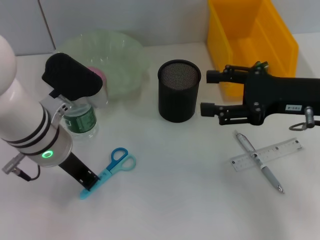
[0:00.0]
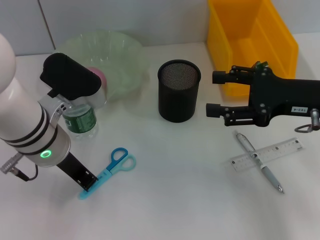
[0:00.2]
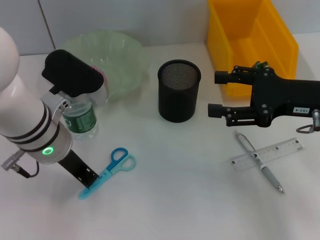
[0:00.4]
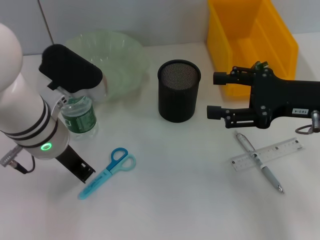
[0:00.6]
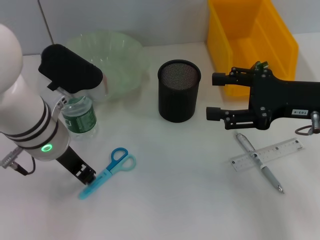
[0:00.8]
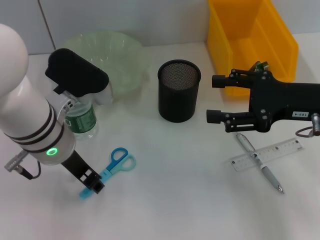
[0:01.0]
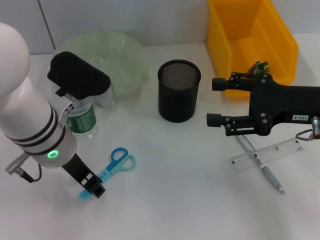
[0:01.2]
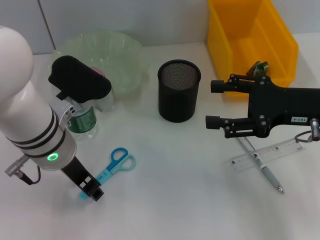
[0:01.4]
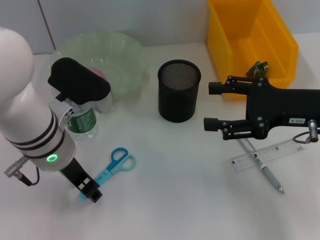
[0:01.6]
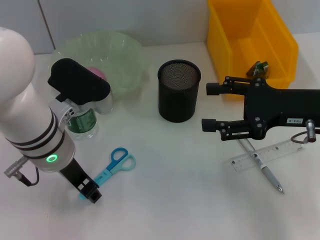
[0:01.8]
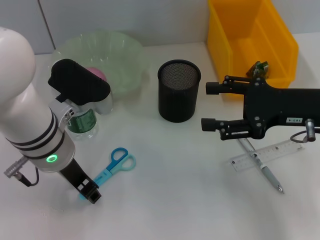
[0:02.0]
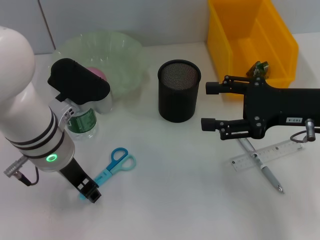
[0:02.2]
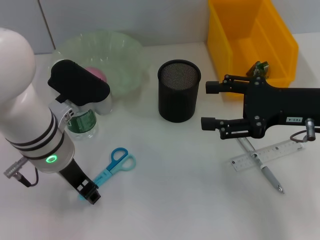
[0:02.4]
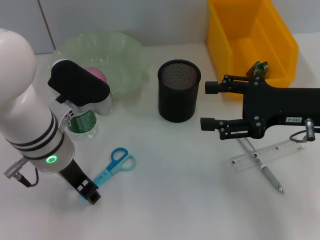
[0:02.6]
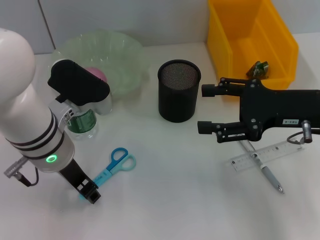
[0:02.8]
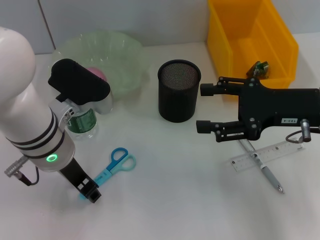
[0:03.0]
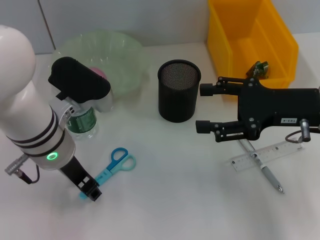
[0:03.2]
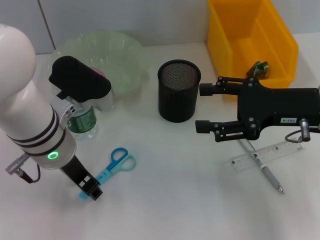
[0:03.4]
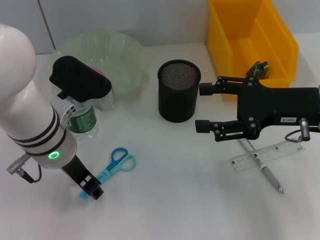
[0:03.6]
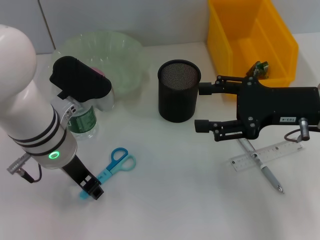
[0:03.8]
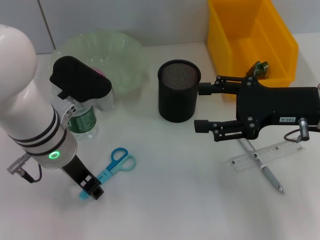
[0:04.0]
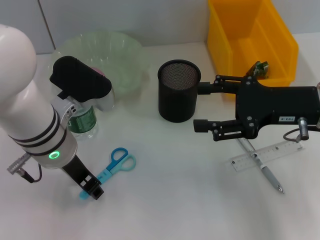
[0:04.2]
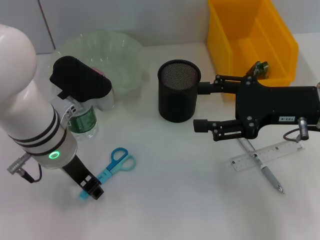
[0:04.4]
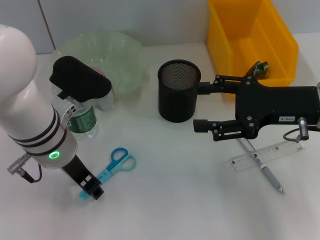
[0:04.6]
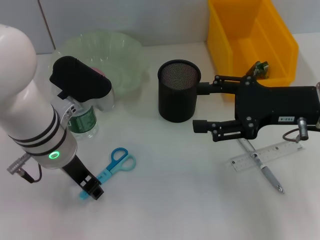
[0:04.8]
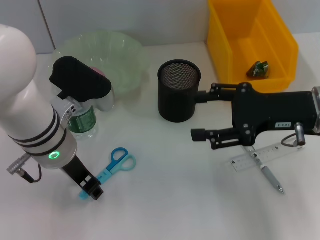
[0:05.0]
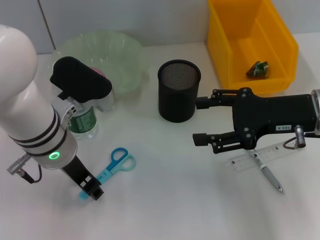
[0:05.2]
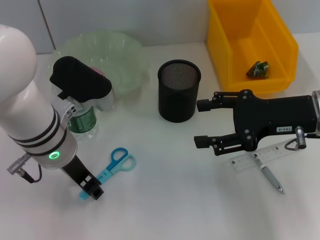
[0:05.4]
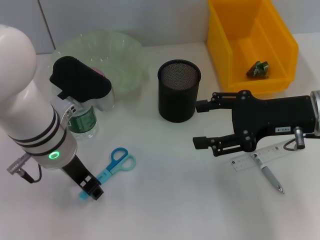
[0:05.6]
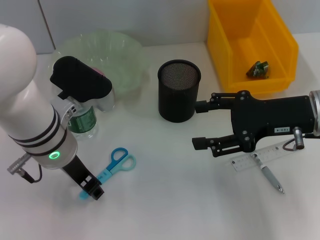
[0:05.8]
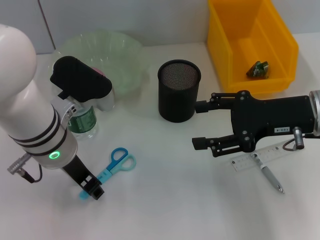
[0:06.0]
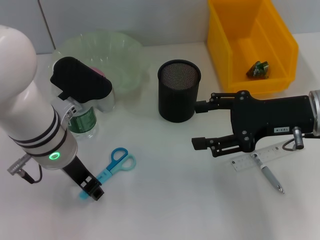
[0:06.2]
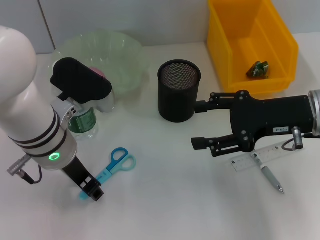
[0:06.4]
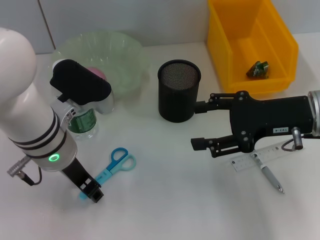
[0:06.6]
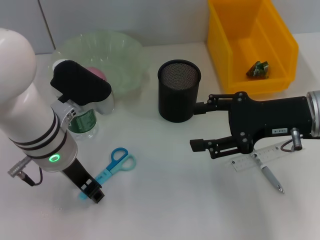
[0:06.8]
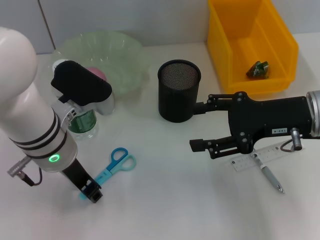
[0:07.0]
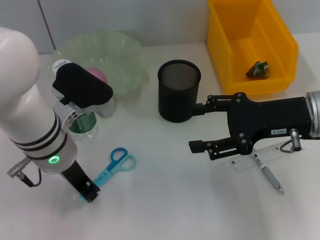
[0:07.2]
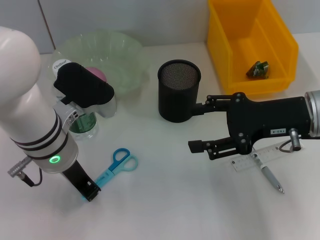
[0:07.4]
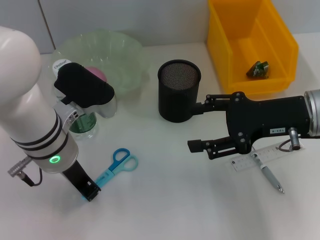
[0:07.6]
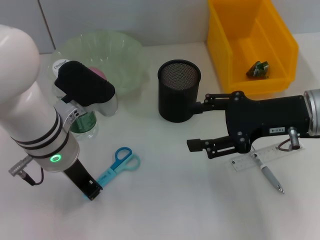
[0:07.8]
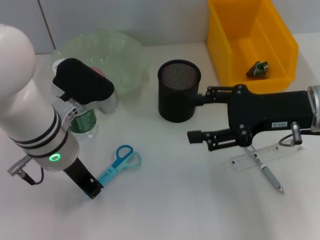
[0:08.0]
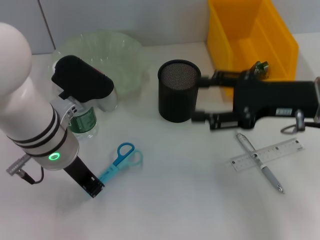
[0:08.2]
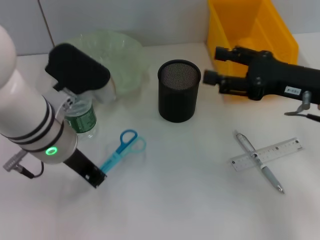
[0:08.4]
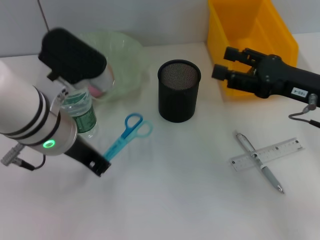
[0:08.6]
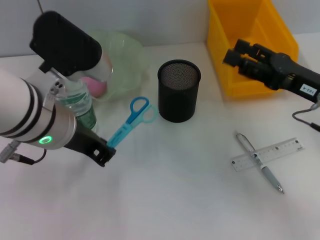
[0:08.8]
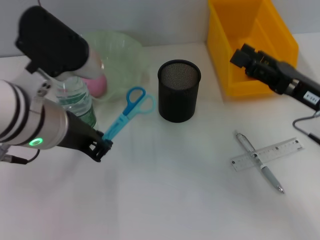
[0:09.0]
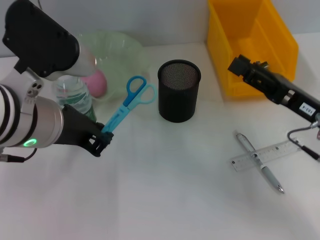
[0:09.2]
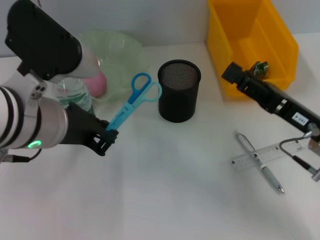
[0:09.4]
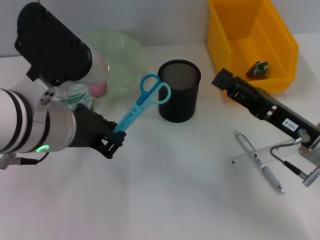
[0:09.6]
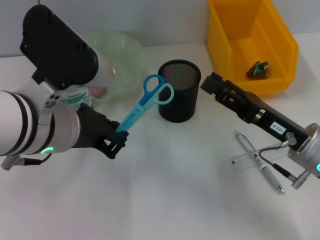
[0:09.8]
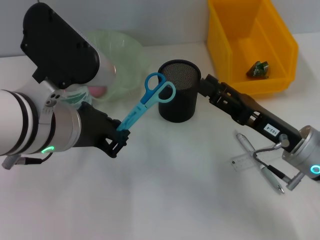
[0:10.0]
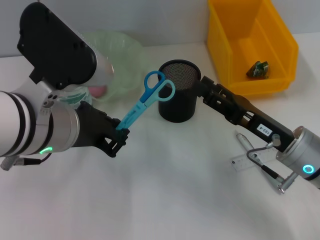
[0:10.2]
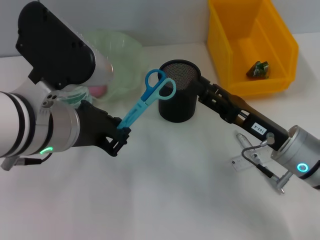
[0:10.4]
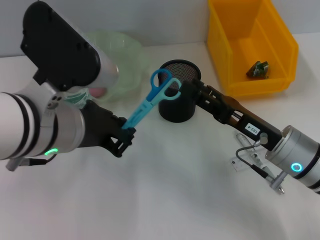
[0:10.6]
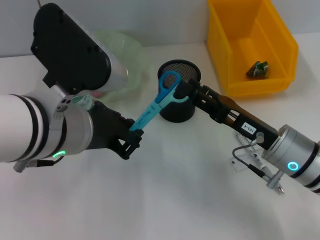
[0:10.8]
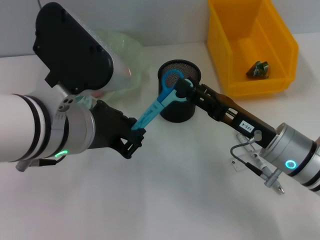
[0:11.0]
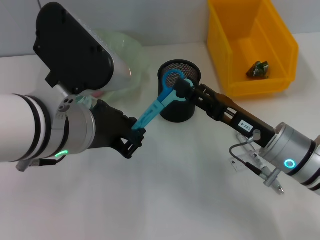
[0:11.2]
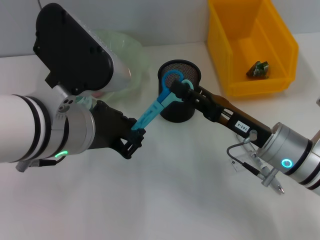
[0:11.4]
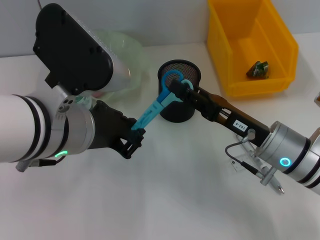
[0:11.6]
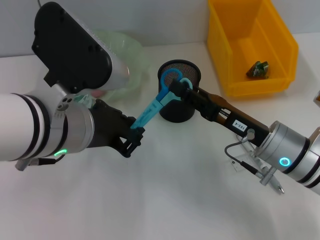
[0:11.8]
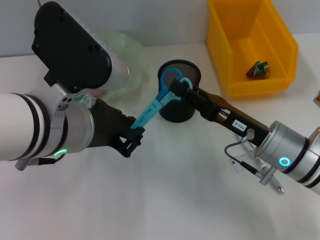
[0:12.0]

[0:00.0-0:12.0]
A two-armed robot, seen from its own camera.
Step, 0:00.0 to 0:07.6: Grab the blue scissors with the right hand.
0:00.0 to 0:01.6: The left gripper opens.
0:01.6 to 0:03.0: Both grippers stay about where they are.
0:03.0 to 0:04.4: Neither gripper changes place.
0:04.4 to 0:06.0: The grippers move only a little.
0:06.0 to 0:07.6: The left gripper closes up.
0:07.6 to 0:09.0: The left gripper travels upward by approximately 5 cm, while the right gripper ends up some 5 cm from where it was.
0:09.0 to 0:10.4: The right gripper shifts some 5 cm to the left.
0:10.4 to 0:12.0: The right gripper closes.

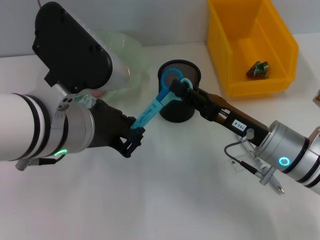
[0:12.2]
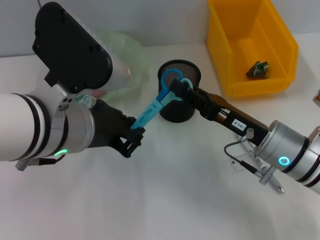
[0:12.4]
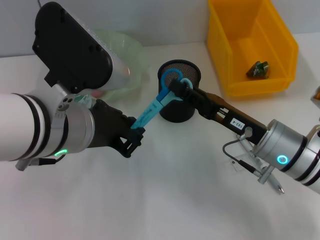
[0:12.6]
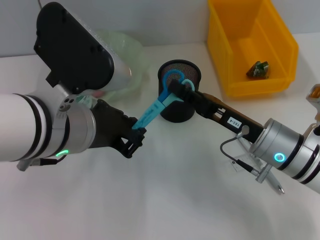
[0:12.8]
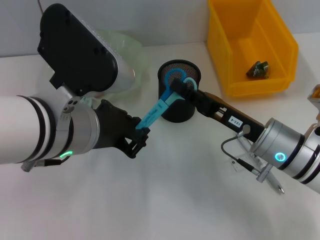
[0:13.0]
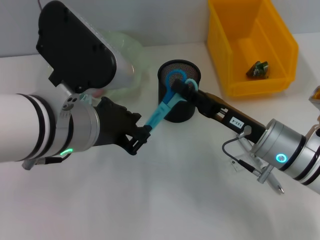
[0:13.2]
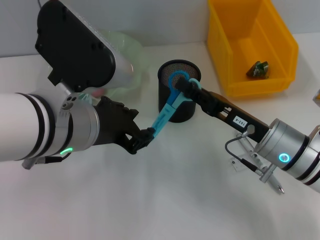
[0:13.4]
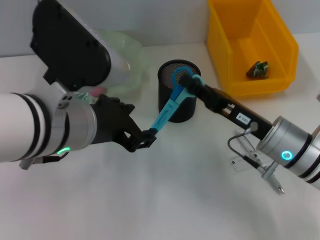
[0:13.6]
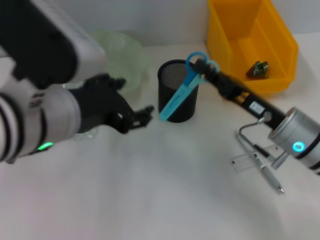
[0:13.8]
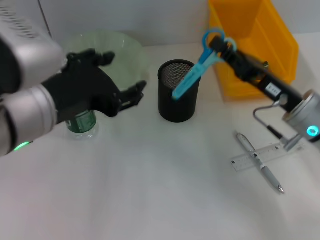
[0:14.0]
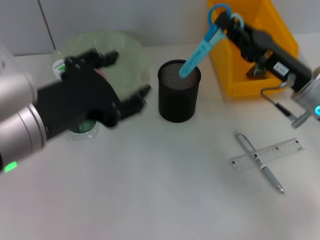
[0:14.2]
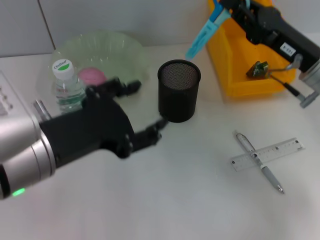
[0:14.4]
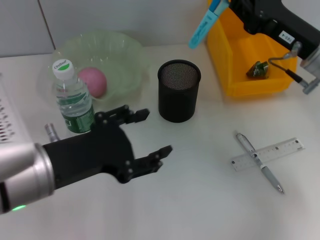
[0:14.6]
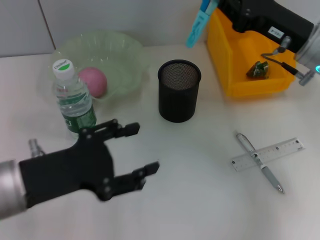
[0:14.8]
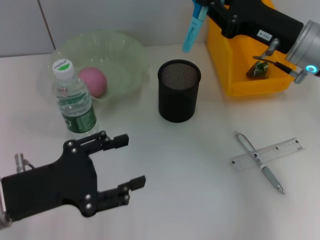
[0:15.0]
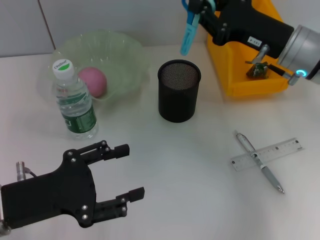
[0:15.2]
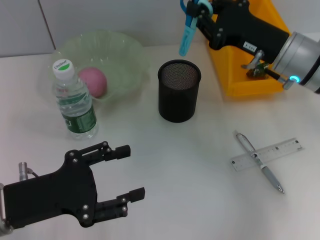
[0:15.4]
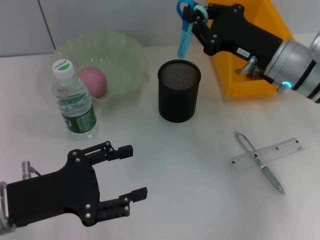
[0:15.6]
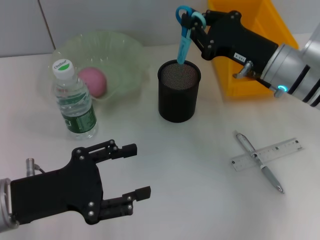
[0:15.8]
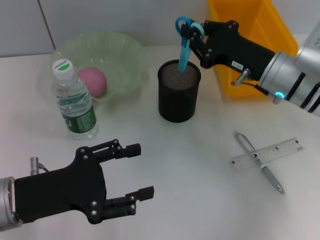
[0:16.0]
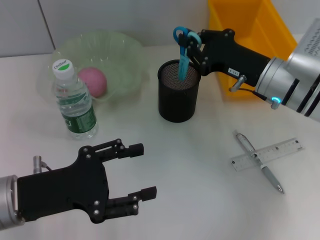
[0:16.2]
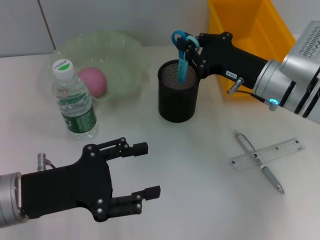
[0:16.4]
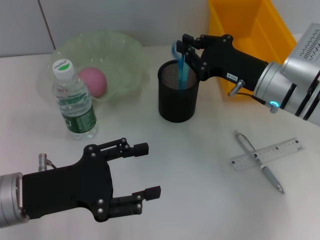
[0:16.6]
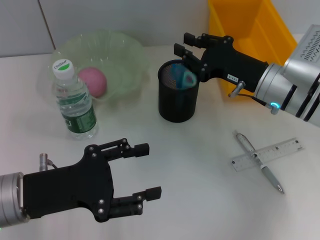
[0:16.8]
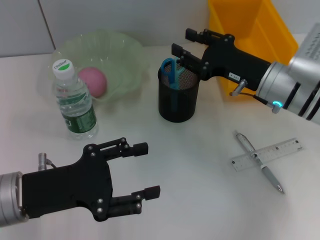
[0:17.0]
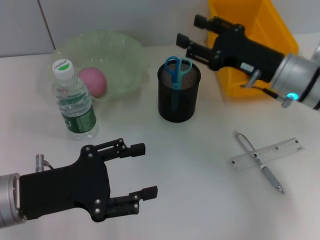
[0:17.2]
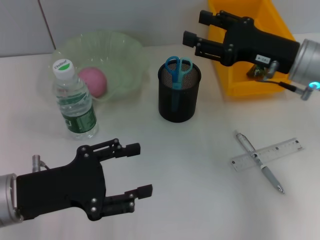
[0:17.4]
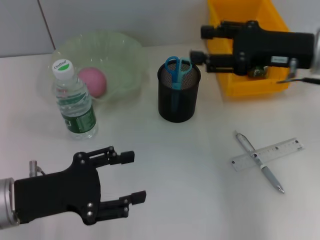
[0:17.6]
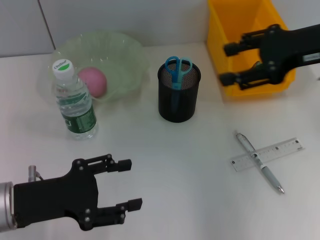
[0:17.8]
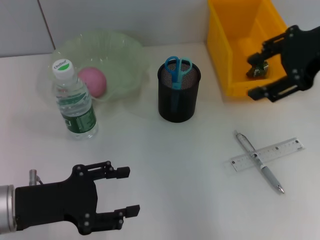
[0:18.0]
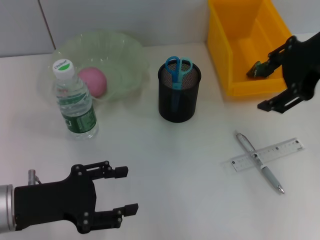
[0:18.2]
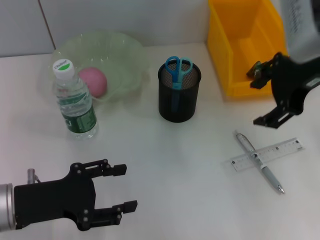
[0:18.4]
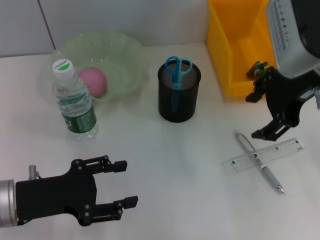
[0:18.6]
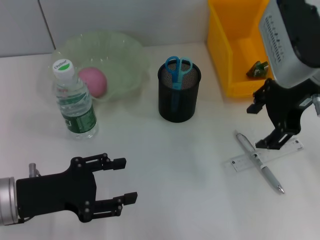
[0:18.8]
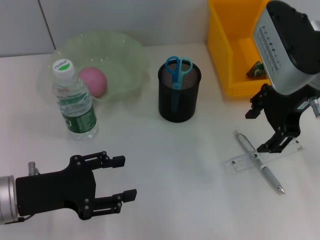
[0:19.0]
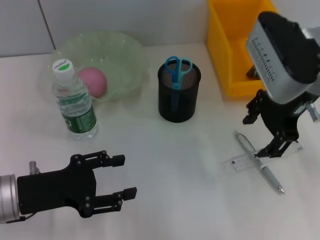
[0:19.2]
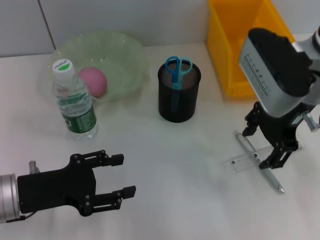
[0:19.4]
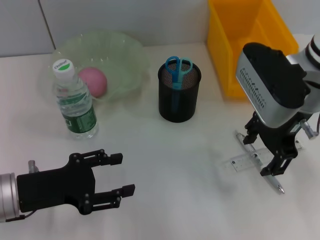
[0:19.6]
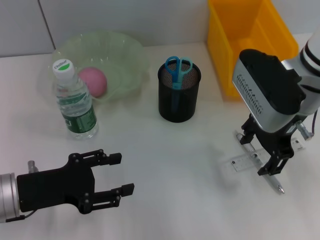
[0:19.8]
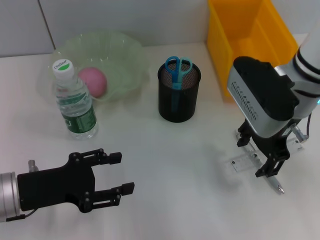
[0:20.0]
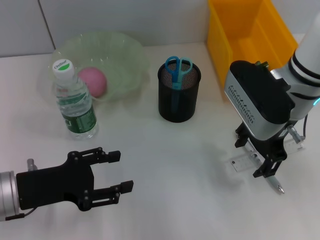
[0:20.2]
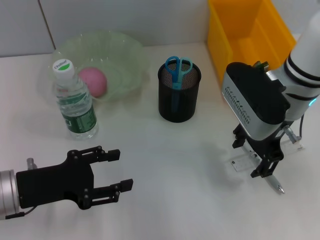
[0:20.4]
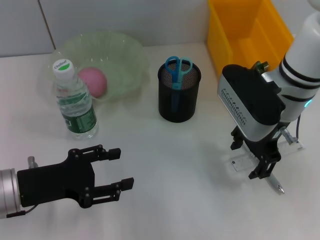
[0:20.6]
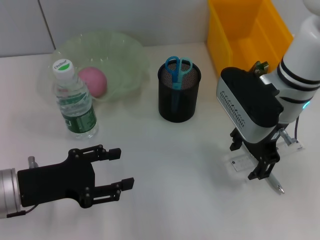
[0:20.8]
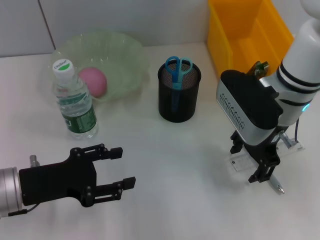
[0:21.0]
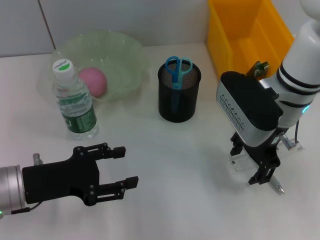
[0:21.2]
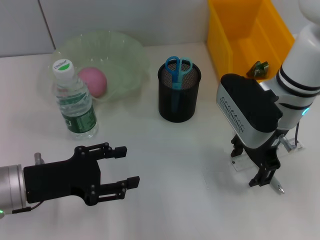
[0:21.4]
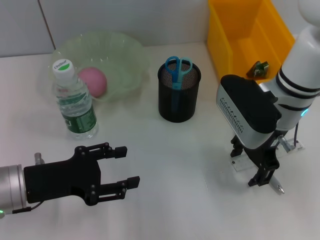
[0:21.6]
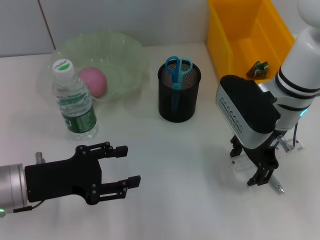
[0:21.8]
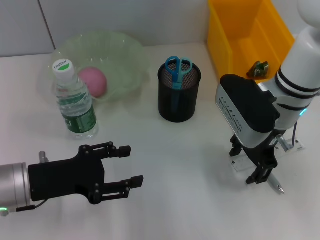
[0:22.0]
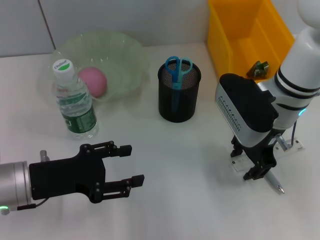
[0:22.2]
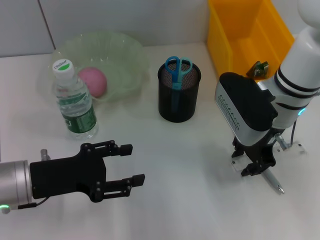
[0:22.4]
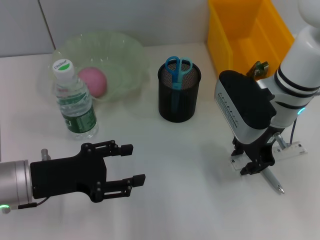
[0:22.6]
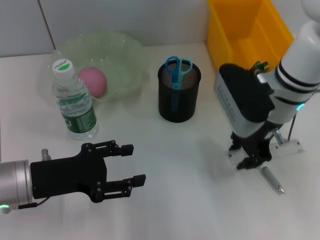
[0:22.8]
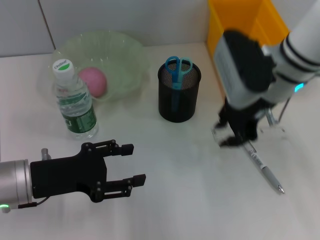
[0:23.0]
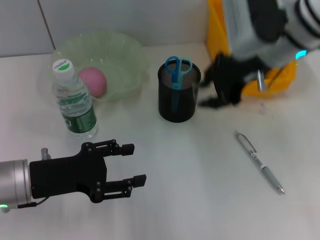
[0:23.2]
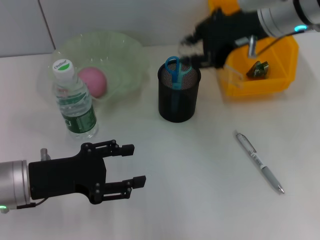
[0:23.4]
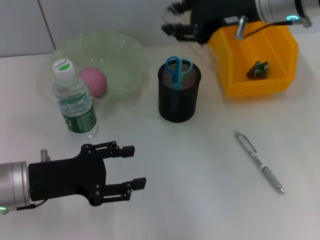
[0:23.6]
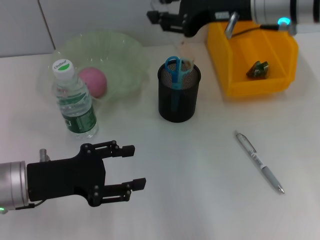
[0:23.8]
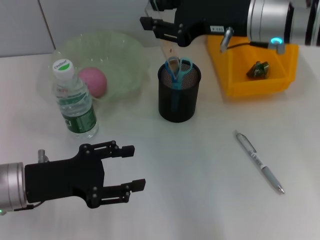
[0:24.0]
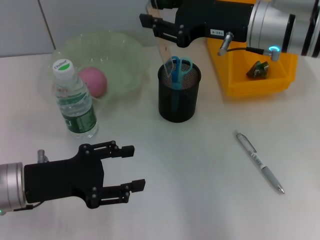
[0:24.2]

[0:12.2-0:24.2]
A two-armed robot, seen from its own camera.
Step, 0:13.2 to 0:17.0: Place the blue scissors into the pen holder with the right hand.
Step, 0:17.2 to 0:22.6: Grab the ruler with the right hand.
0:12.2 to 0:13.8: The right gripper closes up. Meanwhile the left gripper opens up.
0:13.8 to 0:15.2: The right gripper shifts about 10 cm upward and forward, while the left gripper travels downward and to the left by roughly 15 cm.
0:15.2 to 0:16.6: The right gripper is displaced downward by some 5 cm.
0:16.6 to 0:18.2: The right gripper moves upward, approximately 20 cm, and opens up.
0:18.2 to 0:19.8: The right gripper shifts approximately 10 cm downward.
0:19.8 to 0:21.2: The grippers make only small movements.
0:21.2 to 0:22.6: The right gripper closes.
0:22.6 to 0:24.2: The right gripper travels upward by roughly 5 cm.
